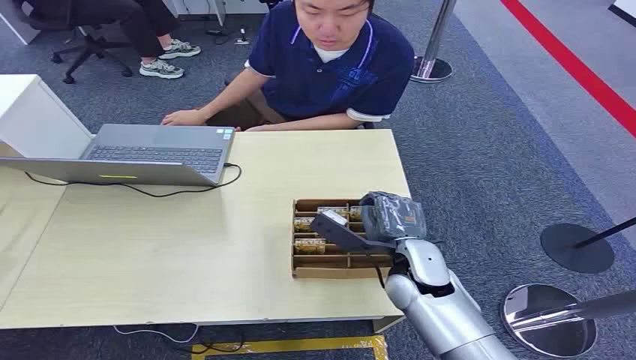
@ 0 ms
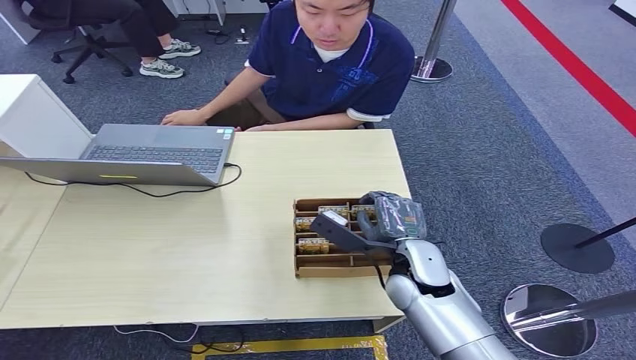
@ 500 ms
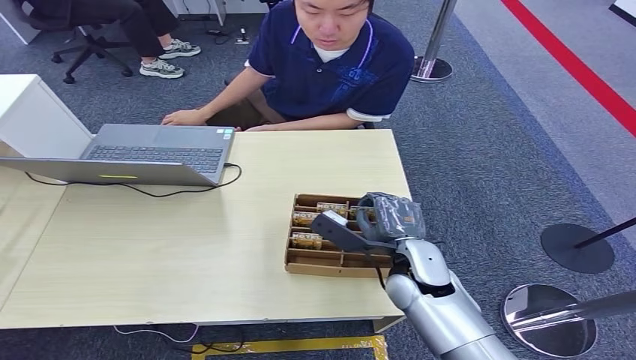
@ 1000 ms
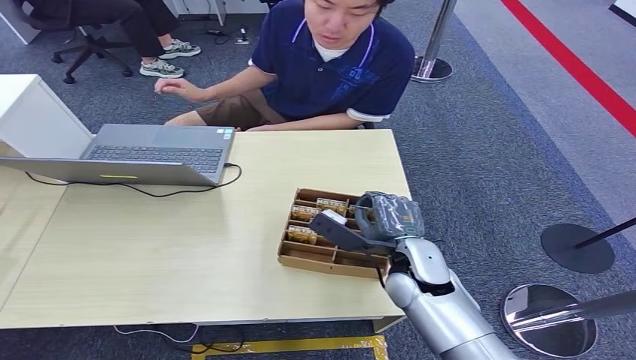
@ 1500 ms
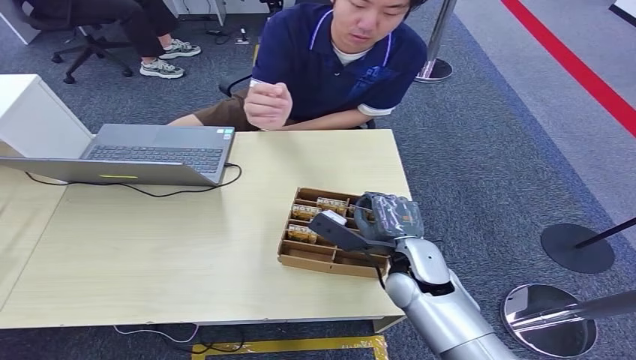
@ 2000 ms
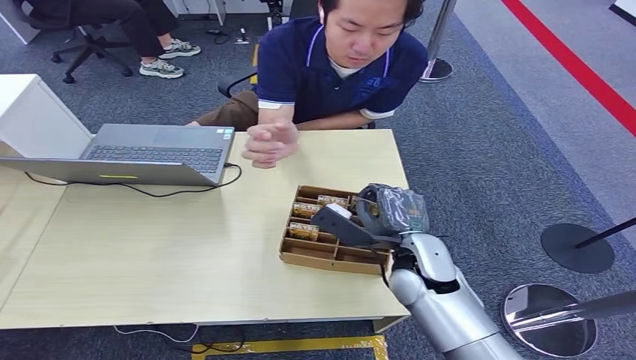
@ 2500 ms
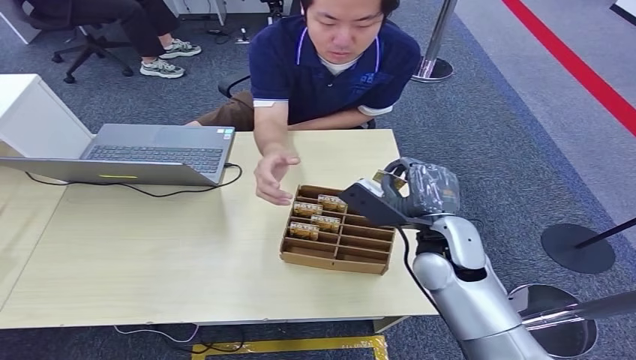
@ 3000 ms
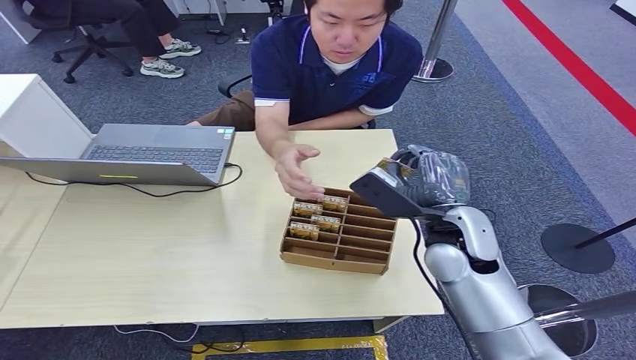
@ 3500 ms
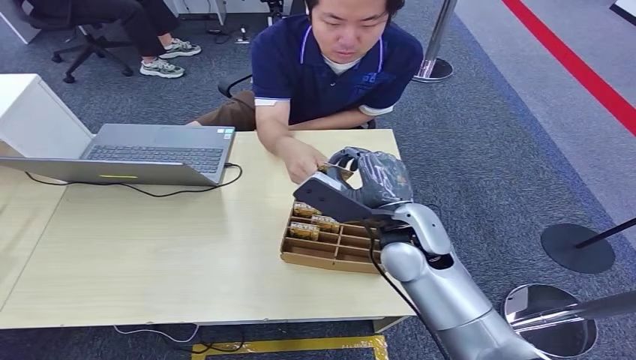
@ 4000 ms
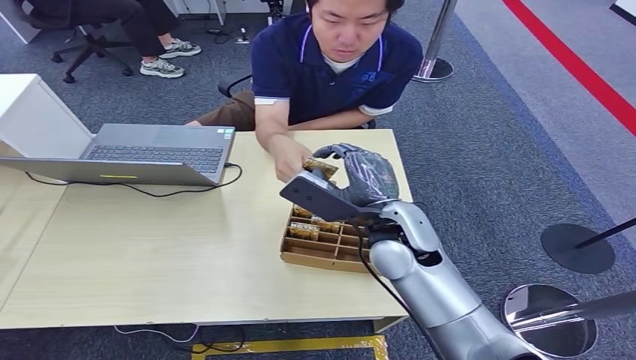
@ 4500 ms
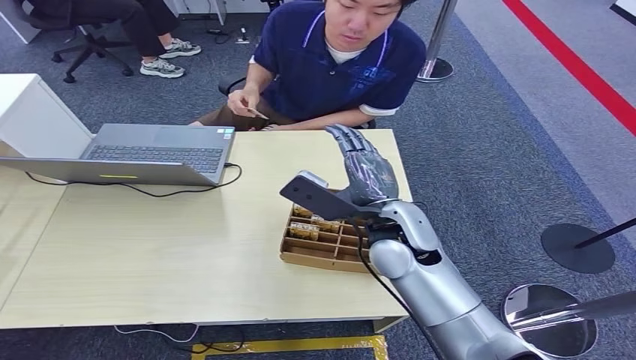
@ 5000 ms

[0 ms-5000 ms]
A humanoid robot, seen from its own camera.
Step, 0 ms to 2500 ms: Pick up the room card from the card holder.
Step, 3000 ms to 5000 ms: Hand the room card to the target.
2500 ms to 5000 ms: The right hand shifts about 5 cm upward.
